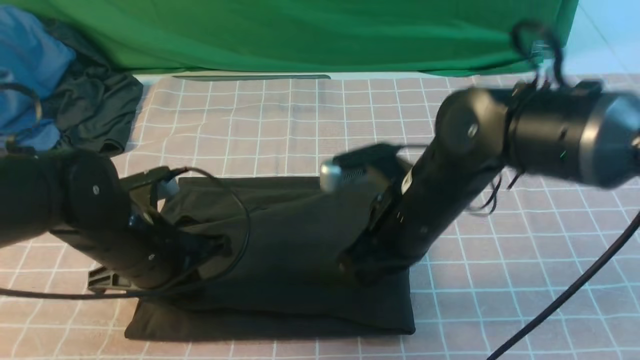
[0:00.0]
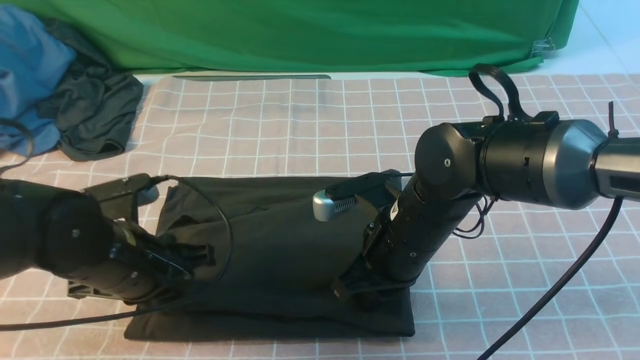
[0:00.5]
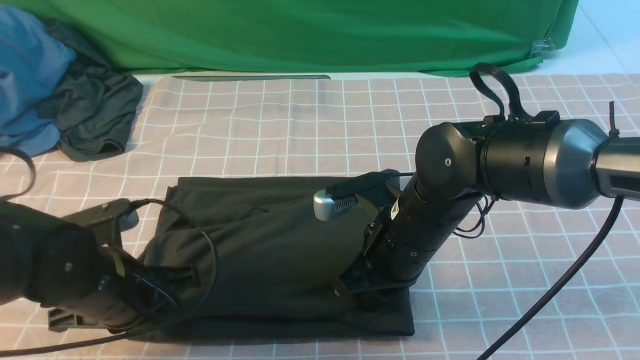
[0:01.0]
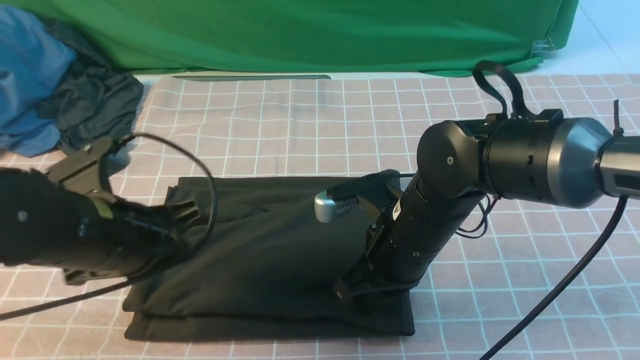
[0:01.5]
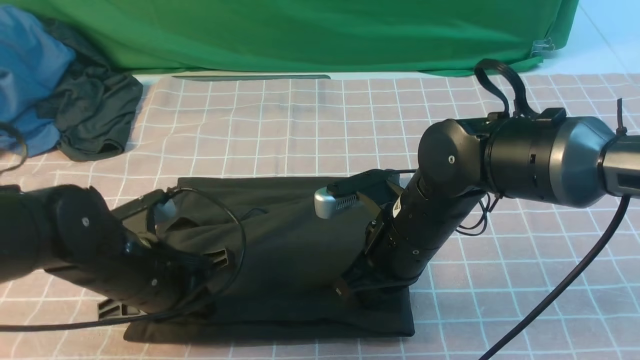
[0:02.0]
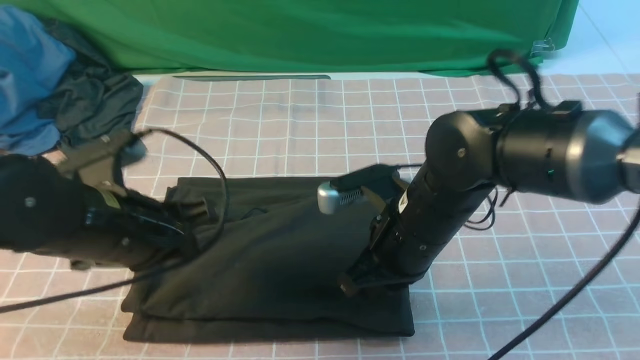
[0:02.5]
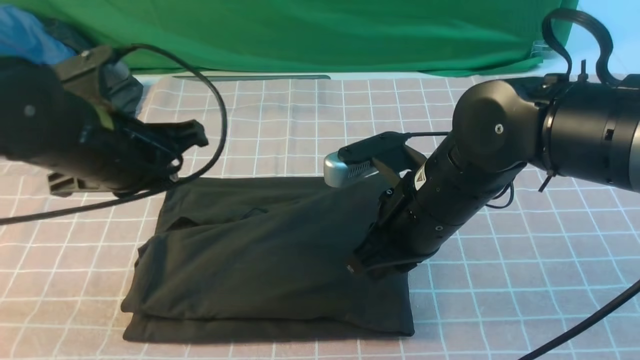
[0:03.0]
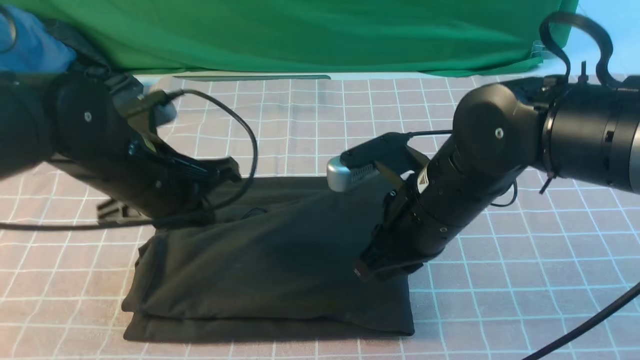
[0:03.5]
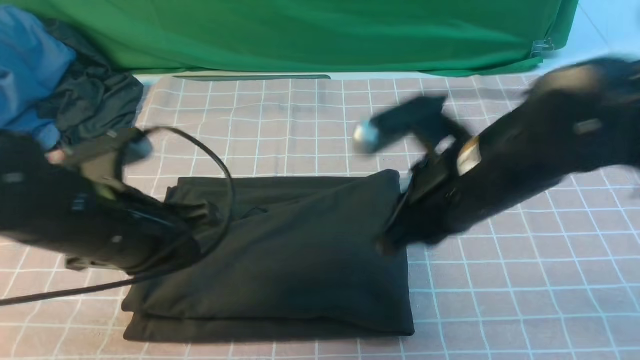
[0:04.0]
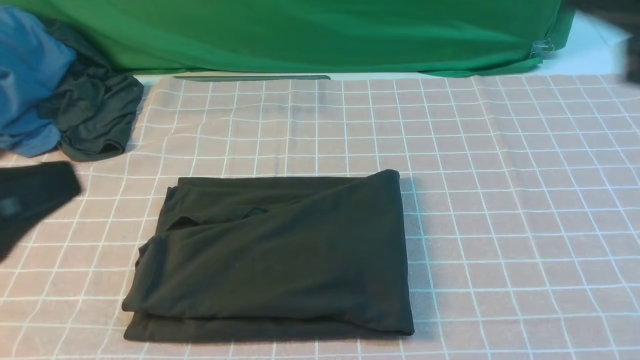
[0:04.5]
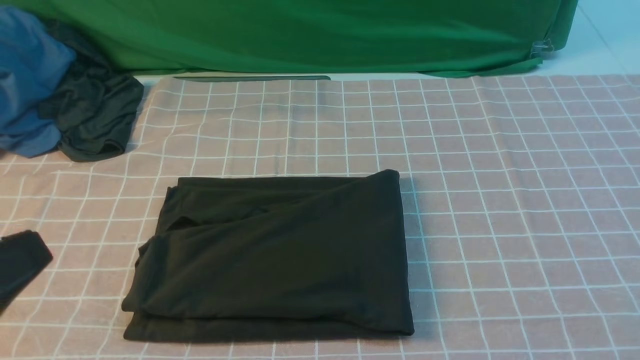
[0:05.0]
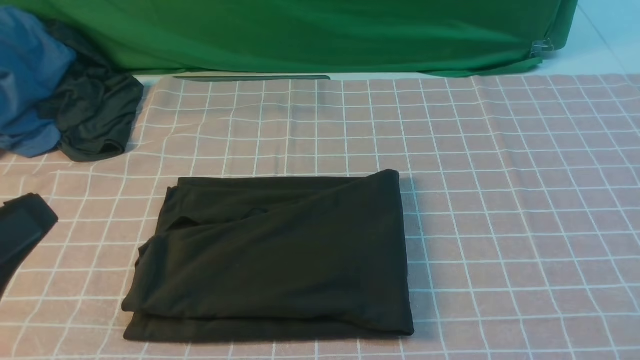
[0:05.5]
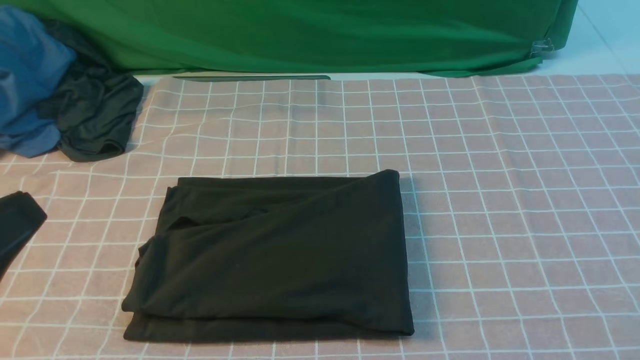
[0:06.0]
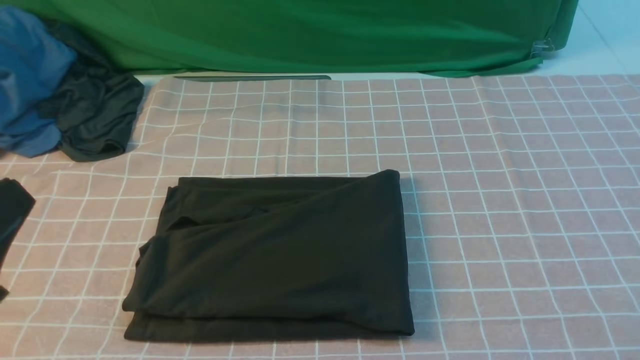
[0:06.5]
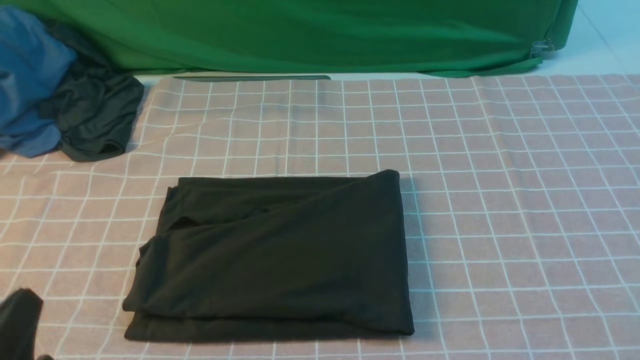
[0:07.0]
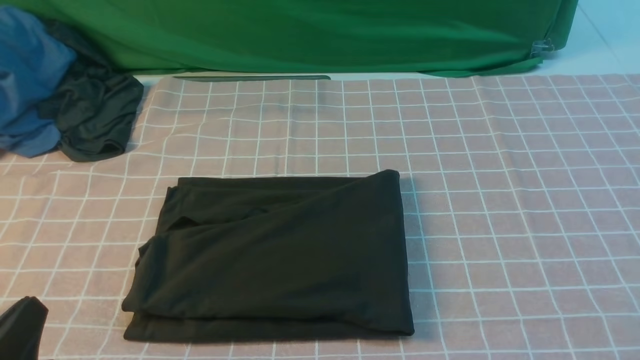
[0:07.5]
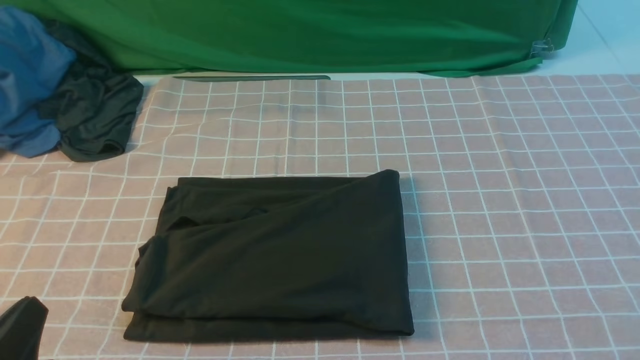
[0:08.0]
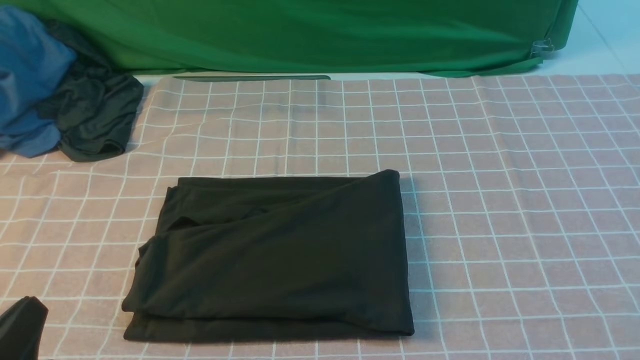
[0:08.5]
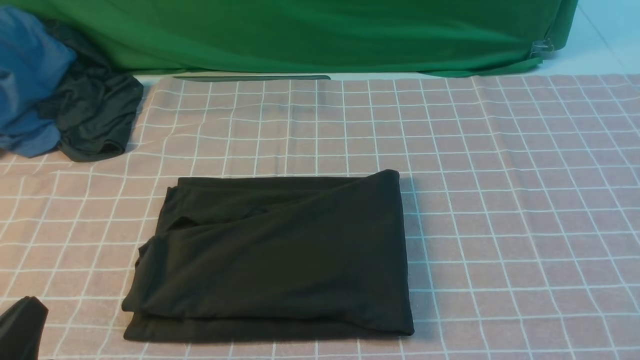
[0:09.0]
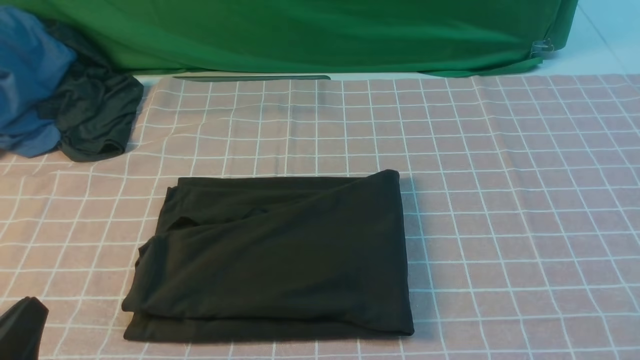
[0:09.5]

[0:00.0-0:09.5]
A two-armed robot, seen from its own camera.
0:02.0 to 0:04.0: The left gripper moves up and down over roughly 10 cm, changing direction 2 times. The right gripper shifts roughly 10 cm upward.
0:04.0 to 0:05.5: The right gripper is displaced backward, to the right and upward by about 30 cm; the left gripper shifts approximately 15 cm backward.
0:05.5 to 0:07.5: The left gripper moves downward, approximately 15 cm.

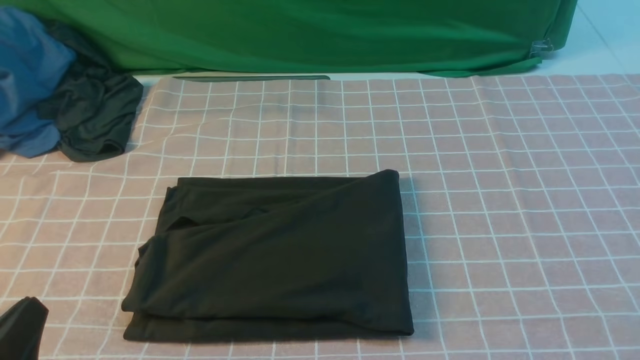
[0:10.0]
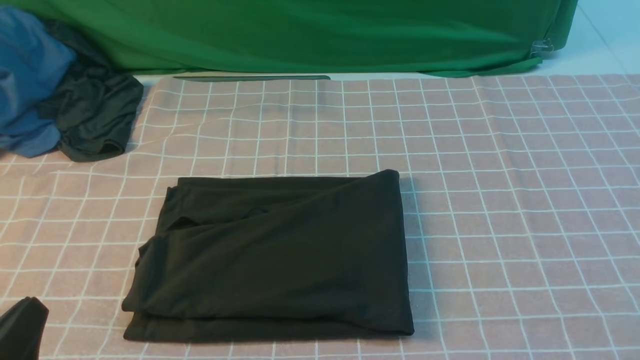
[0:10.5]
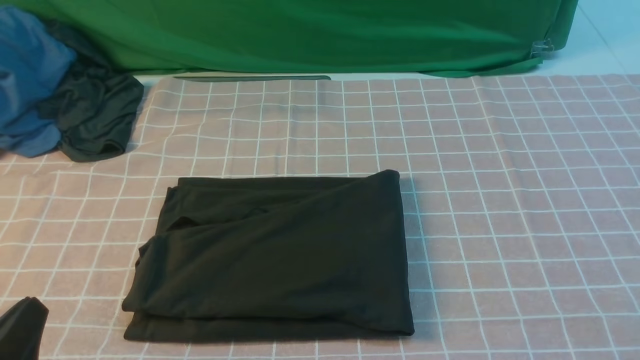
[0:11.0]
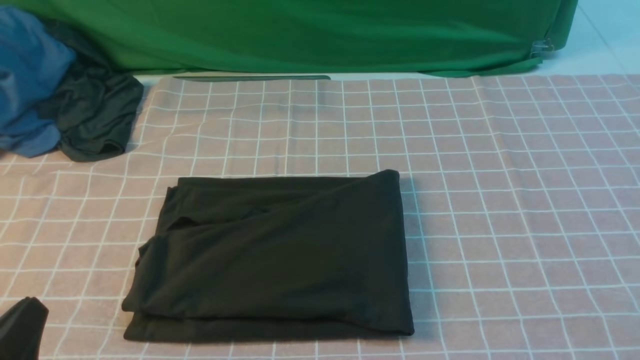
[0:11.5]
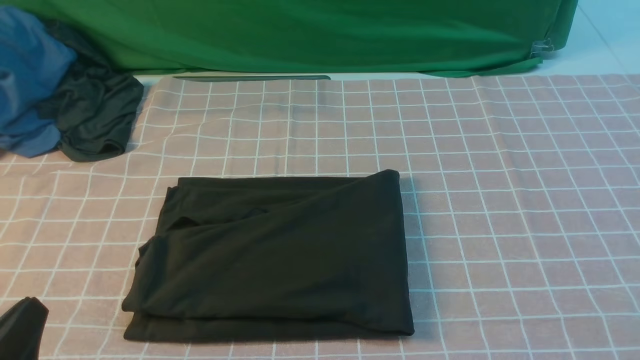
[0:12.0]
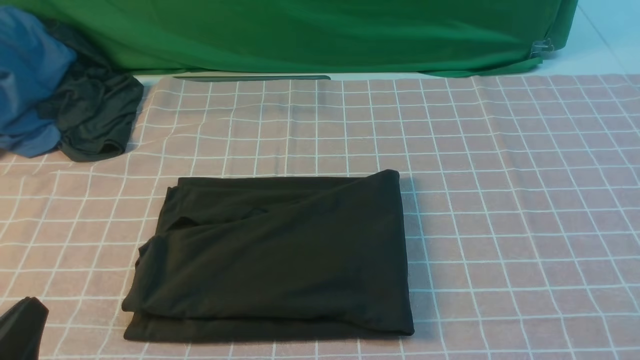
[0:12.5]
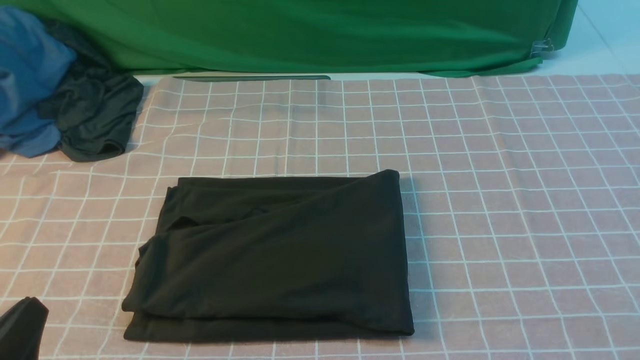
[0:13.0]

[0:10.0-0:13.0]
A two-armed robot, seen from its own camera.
0:11.5 to 0:13.0: Neither gripper changes place.
